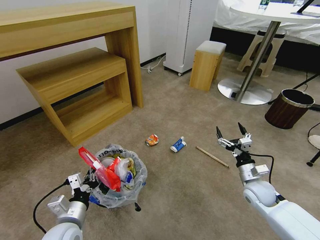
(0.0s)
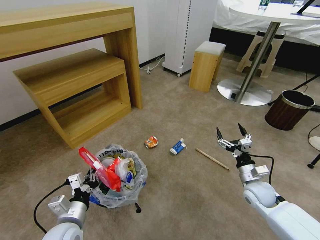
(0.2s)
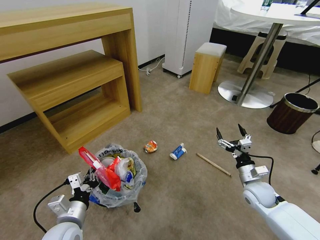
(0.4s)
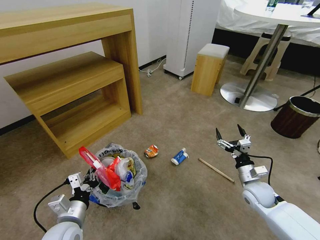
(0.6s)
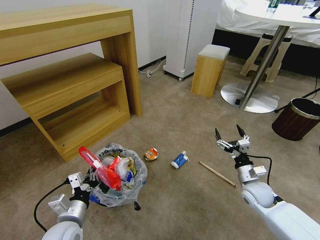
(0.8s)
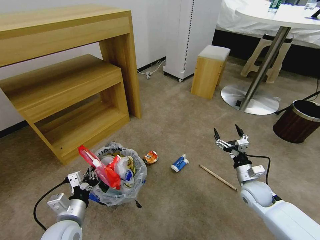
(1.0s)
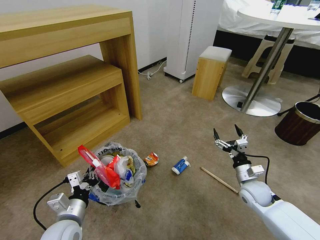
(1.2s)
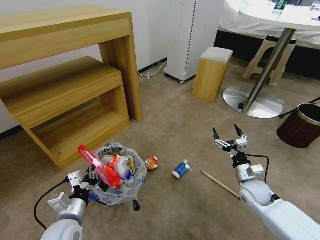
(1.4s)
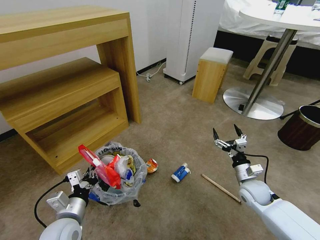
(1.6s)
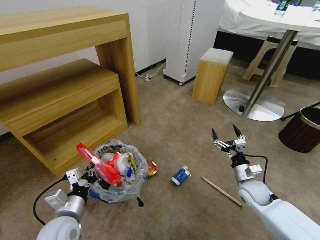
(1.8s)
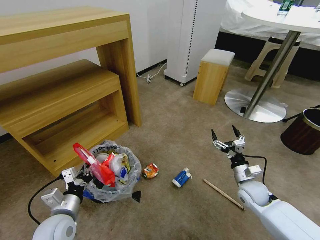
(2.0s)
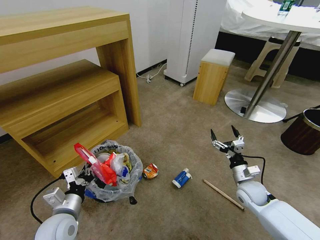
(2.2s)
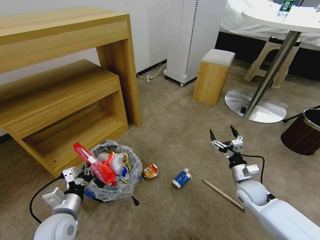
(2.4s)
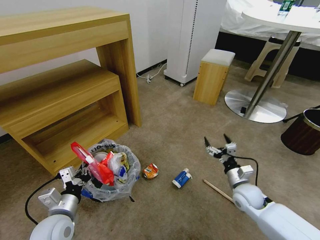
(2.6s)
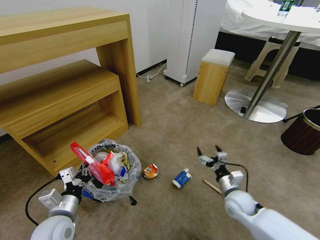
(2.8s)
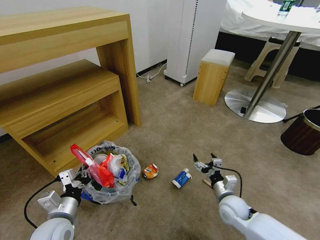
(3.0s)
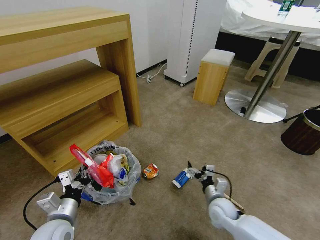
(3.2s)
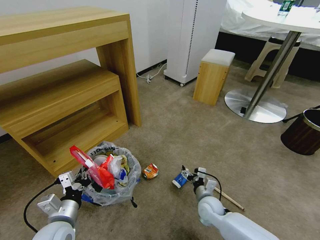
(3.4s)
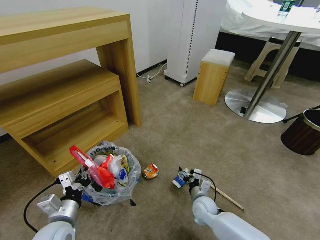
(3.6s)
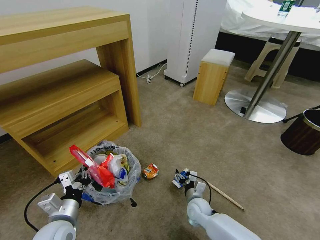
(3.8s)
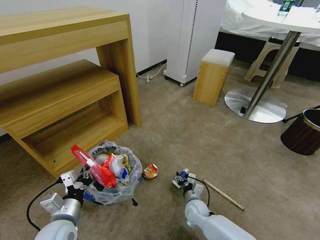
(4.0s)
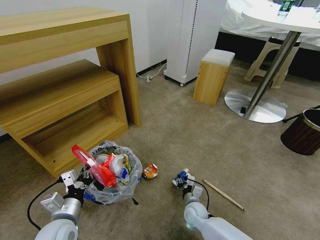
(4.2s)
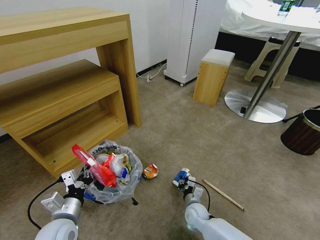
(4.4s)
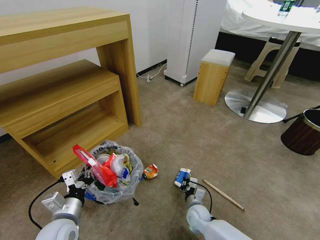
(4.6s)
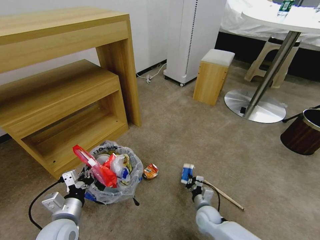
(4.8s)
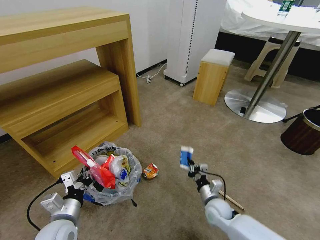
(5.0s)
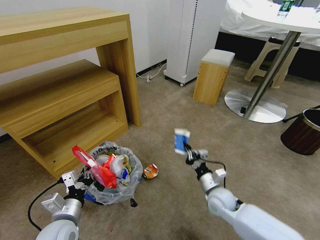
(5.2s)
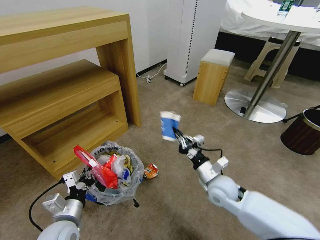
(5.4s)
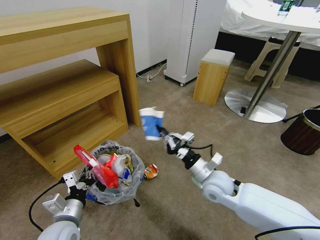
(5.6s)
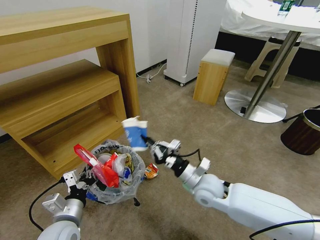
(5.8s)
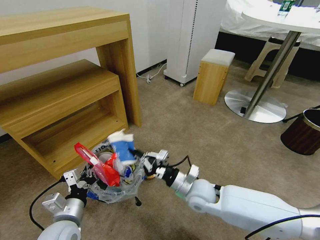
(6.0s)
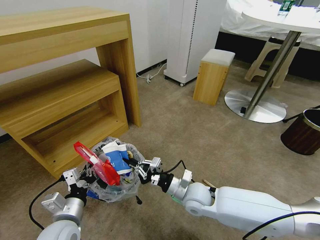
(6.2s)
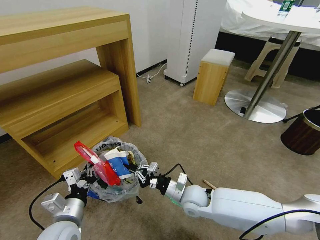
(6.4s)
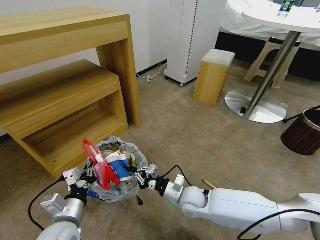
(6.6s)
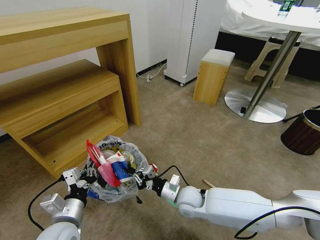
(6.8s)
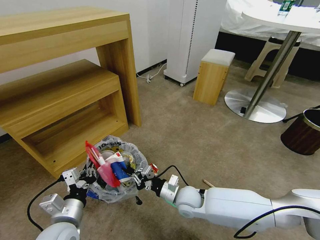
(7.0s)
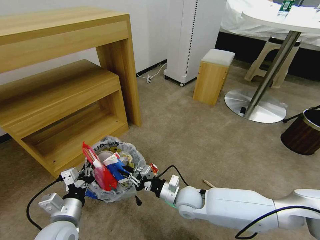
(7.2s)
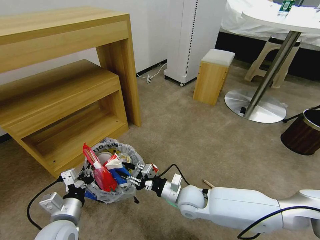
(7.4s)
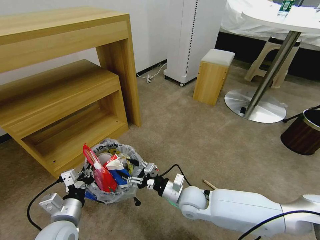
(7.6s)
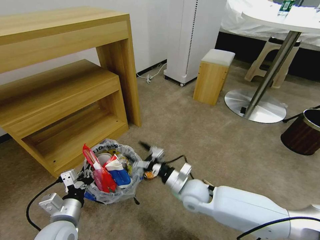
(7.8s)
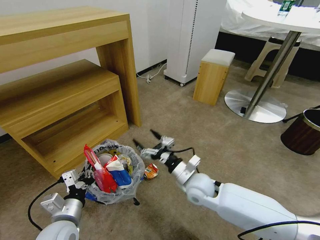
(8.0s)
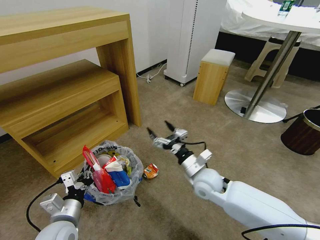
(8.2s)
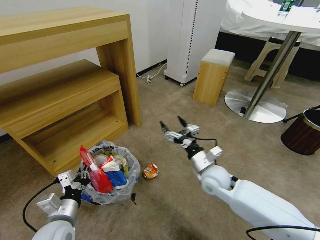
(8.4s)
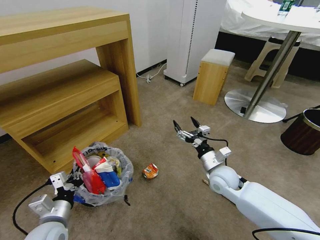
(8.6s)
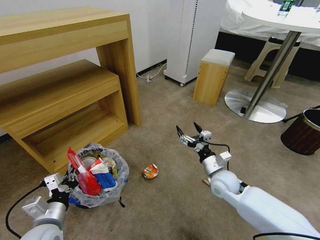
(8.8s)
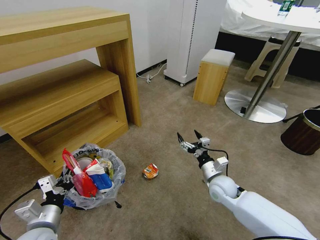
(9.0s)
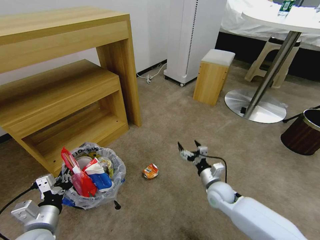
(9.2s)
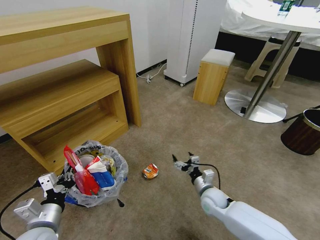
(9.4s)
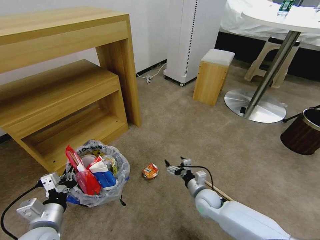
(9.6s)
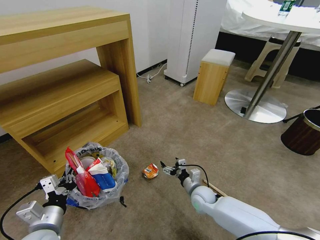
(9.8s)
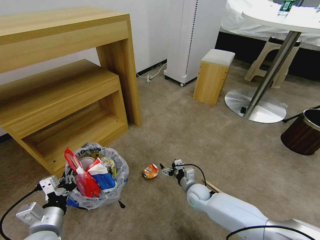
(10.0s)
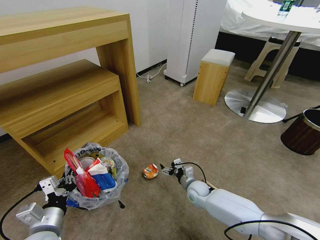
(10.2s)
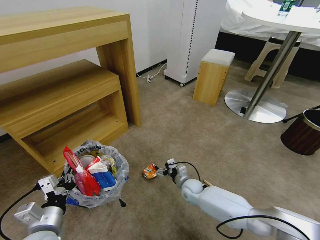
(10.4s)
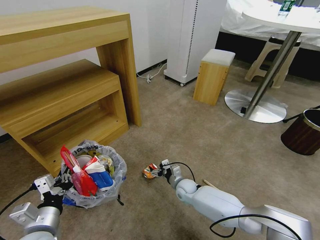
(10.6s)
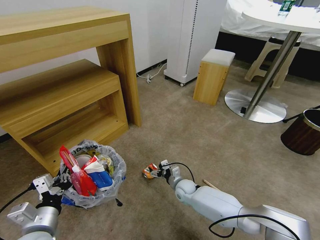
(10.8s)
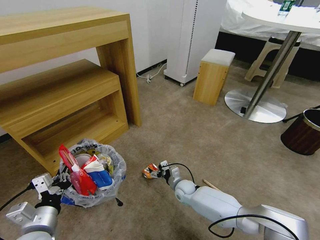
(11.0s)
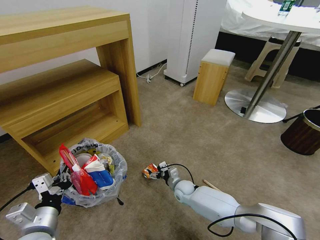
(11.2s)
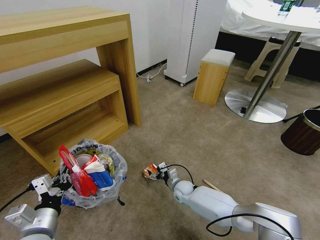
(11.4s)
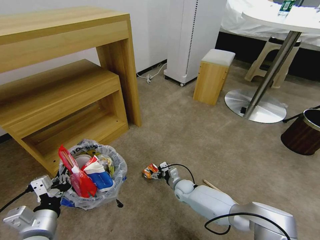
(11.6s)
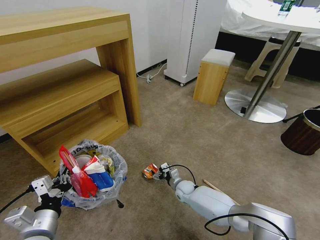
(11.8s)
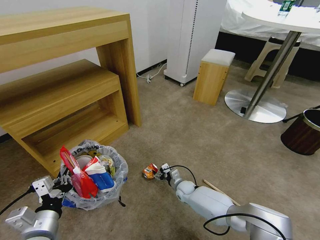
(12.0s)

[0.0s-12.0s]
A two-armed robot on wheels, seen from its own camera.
Task of the whole recording: Pick up the trash bin and place the garbage on the floor into it.
1.6s to 3.0s: The right gripper travels to the left by roughly 10 cm.
3.0s to 4.4s: The right gripper heads downward and to the left, covering some 15 cm, and closes up.
4.4s to 6.0s: The right gripper travels upward by about 20 cm.
6.0s to 7.6s: The right gripper opens its fingers.
7.6s to 9.0s: The left gripper ends up some 5 cm from where it was. Meanwhile the right gripper travels to the right by roughly 10 cm.
9.0s to 10.4s: The right gripper shifts approximately 15 cm downward and to the left.
10.4s to 12.0s: The right gripper is displaced downward by approximately 5 cm.

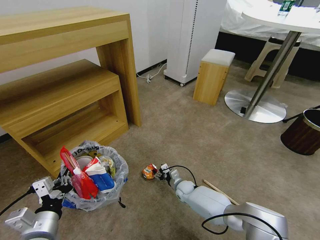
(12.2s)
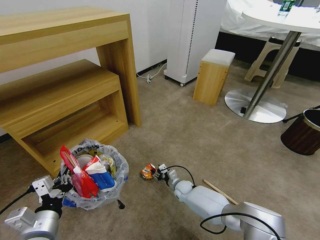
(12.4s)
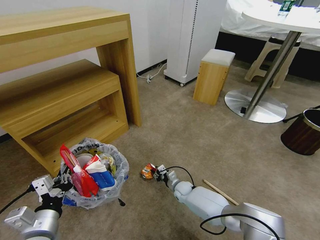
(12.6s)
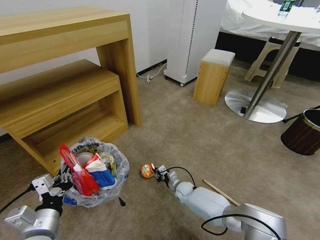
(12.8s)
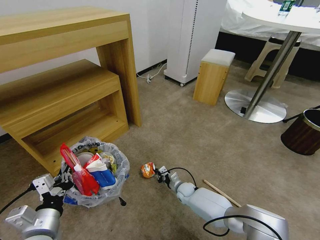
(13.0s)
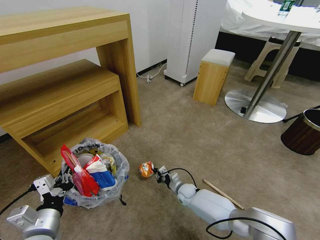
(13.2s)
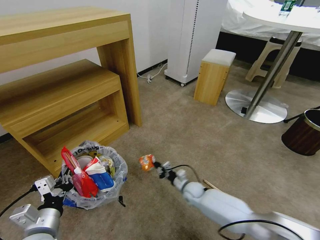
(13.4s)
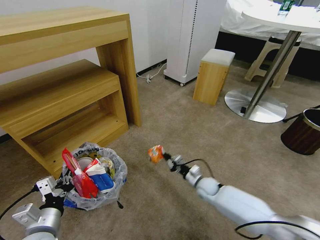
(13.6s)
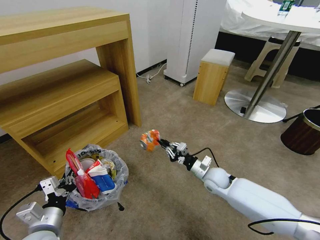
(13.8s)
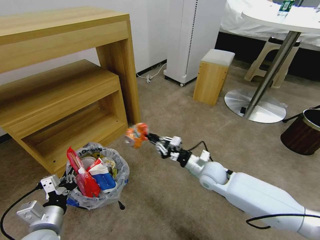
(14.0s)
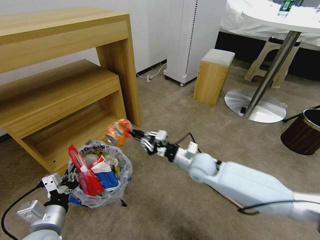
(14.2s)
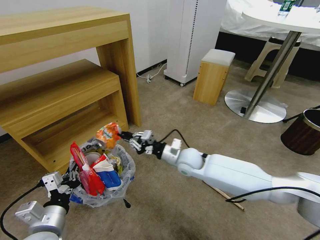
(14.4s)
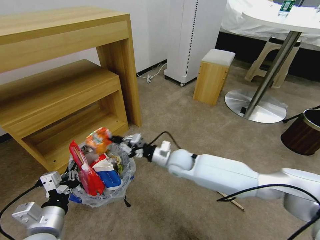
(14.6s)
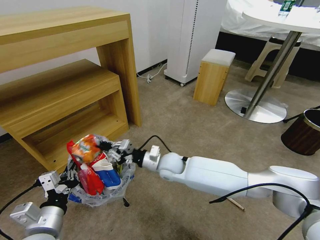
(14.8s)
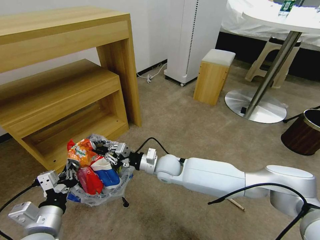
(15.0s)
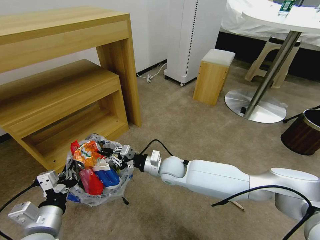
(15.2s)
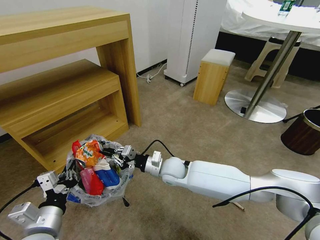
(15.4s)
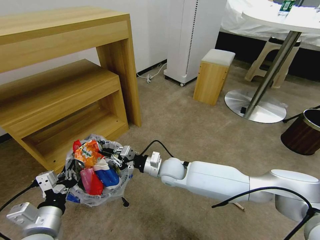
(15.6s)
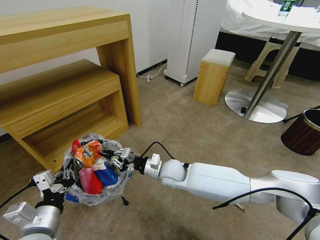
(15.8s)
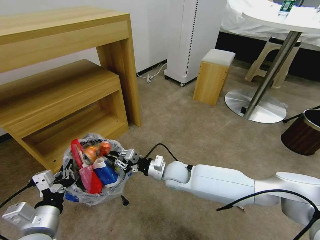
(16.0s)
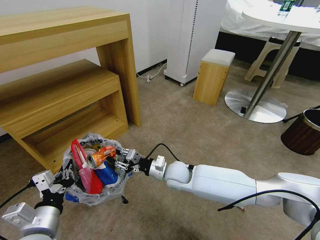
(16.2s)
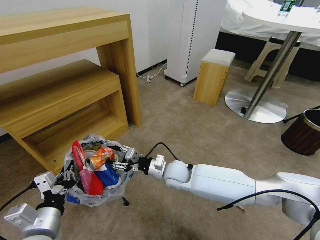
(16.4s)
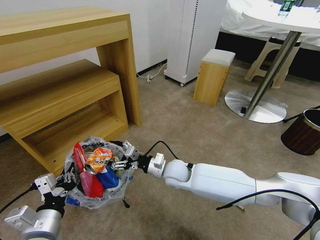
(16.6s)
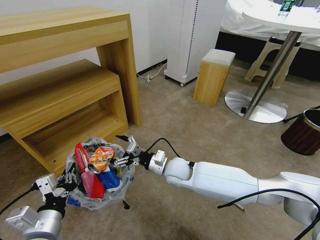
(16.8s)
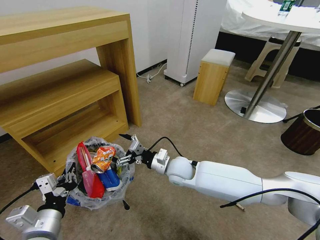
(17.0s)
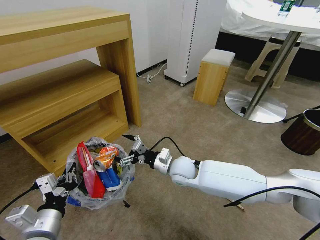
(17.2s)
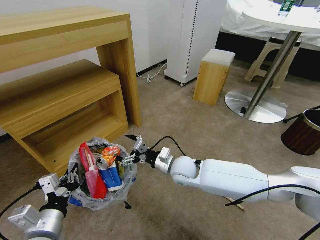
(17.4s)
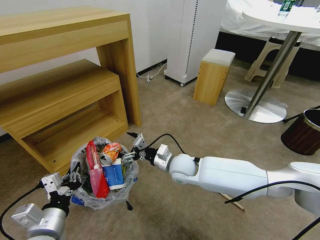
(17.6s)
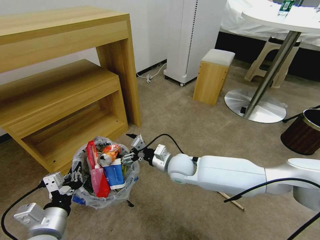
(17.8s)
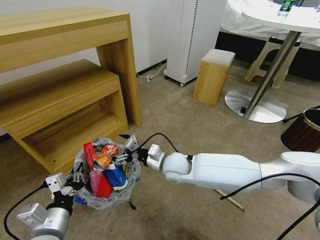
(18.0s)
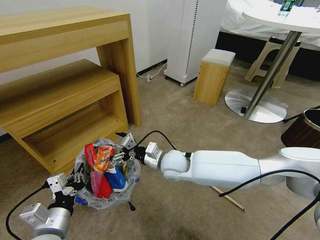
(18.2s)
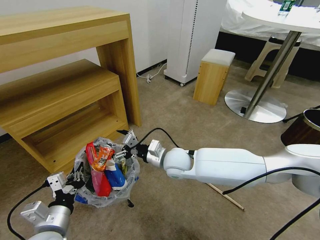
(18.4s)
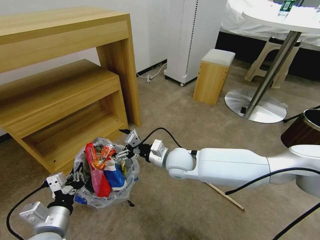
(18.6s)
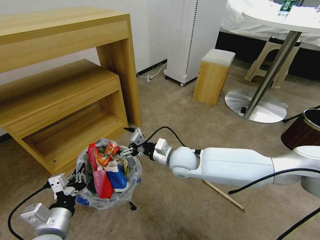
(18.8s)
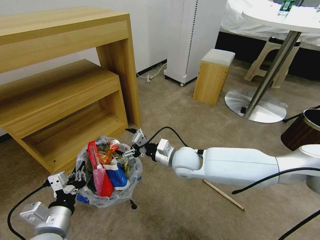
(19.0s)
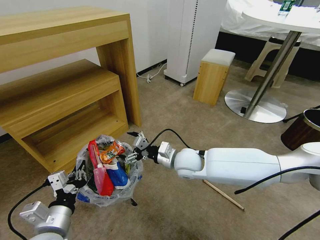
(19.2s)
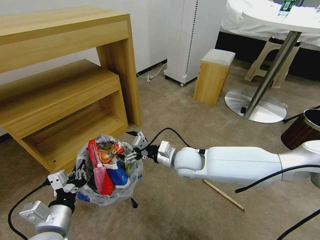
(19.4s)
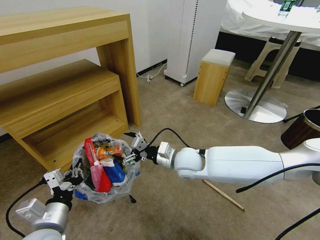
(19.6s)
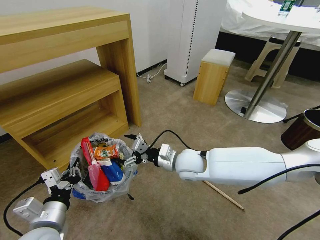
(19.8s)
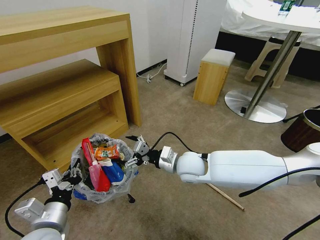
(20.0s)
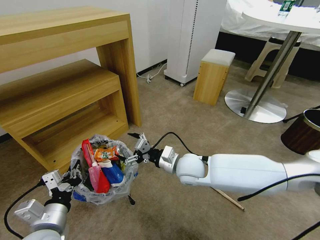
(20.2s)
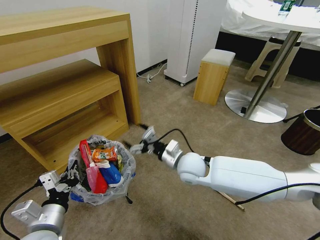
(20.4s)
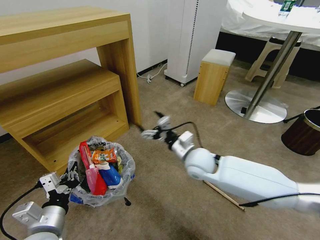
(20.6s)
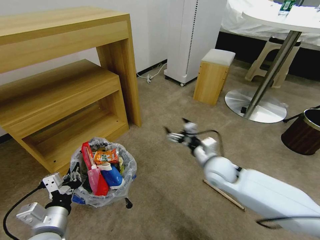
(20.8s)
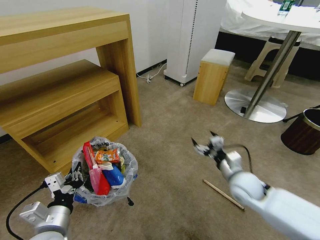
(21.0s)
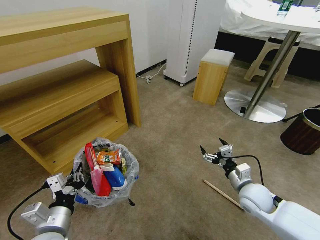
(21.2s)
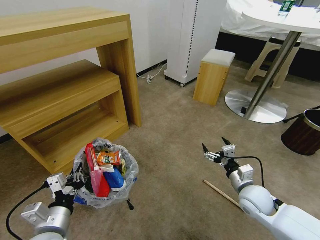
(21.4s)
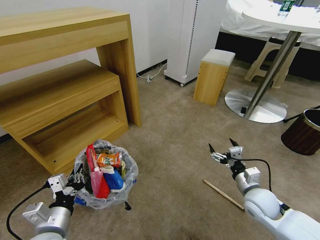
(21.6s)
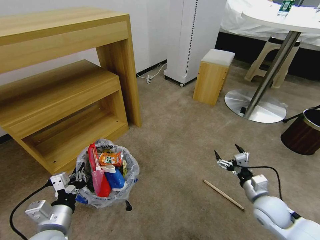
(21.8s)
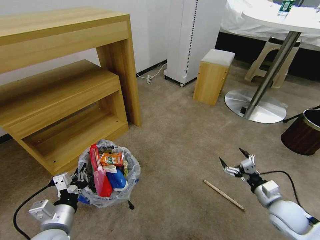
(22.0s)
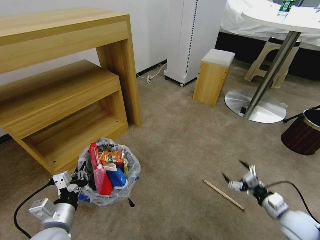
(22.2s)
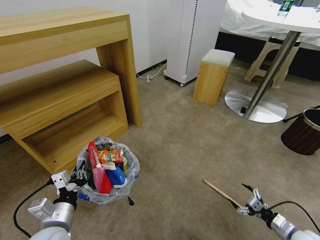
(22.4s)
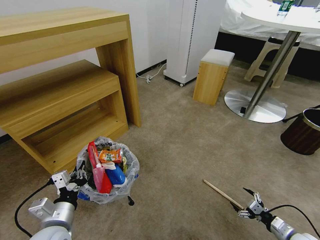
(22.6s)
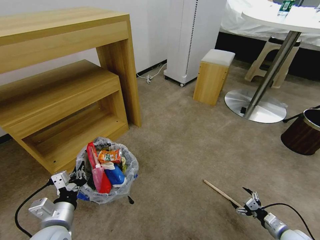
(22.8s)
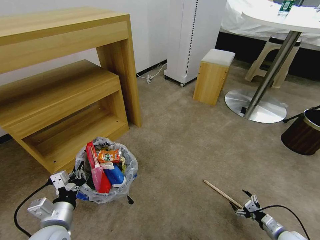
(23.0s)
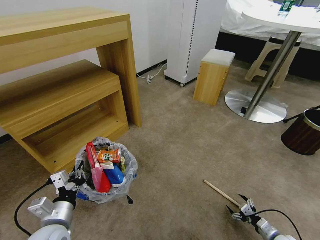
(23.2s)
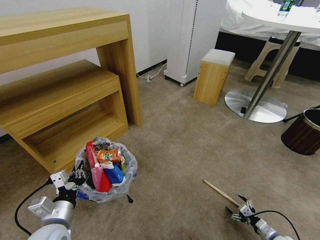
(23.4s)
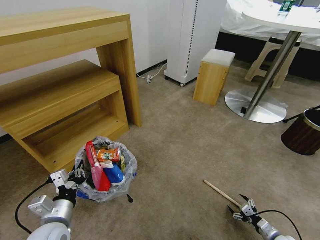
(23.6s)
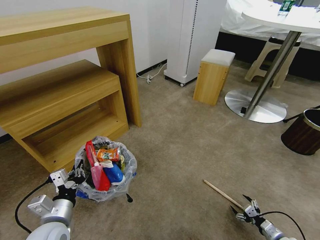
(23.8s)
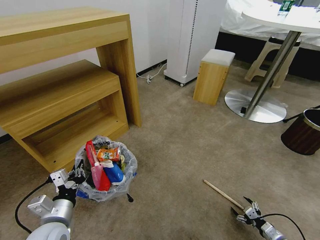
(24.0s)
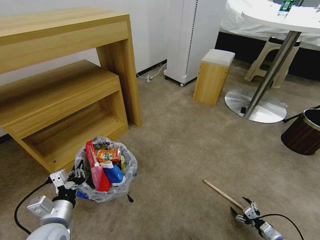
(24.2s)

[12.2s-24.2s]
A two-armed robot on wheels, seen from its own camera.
Task of the whole recording: Pick up the trash bin and place the garbage on the floor into it.
12.2s to 13.8s: The right gripper is displaced upward and to the right by roughly 20 cm, and closes its fingers.
13.8s to 15.2s: The right gripper goes roughly 20 cm to the left. The left gripper shifts by approximately 5 cm.
15.2s to 16.6s: The right gripper opens up.
16.6s to 18.2s: The right gripper is displaced upward by about 5 cm.
18.2s to 19.8s: The right gripper ends up approximately 5 cm from where it was.
19.8s to 21.2s: The right gripper heads to the right, covering some 20 cm.
21.2s to 22.6s: The right gripper heads to the right, downward and backward, covering some 25 cm.
22.6s to 24.2s: The right gripper shifts roughly 10 cm downward.
